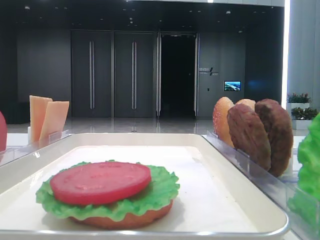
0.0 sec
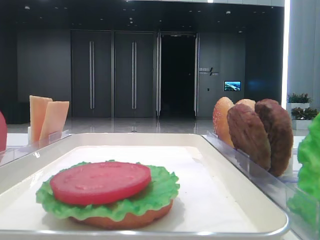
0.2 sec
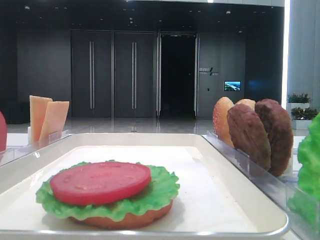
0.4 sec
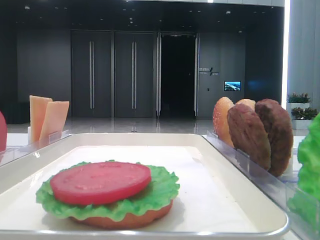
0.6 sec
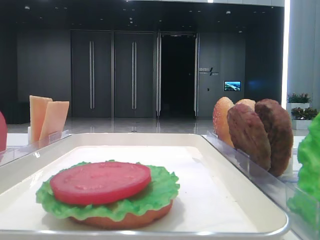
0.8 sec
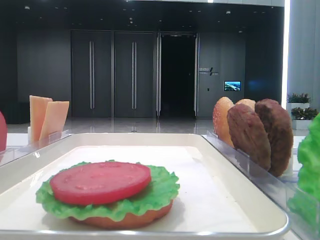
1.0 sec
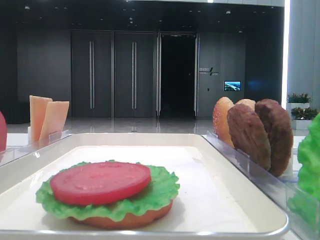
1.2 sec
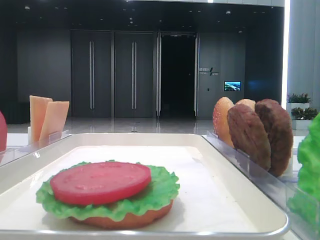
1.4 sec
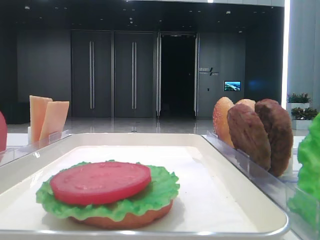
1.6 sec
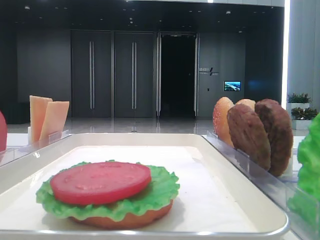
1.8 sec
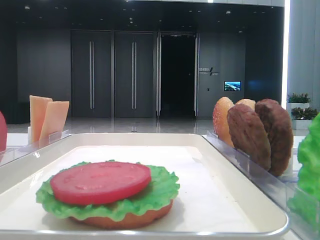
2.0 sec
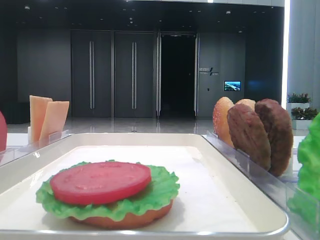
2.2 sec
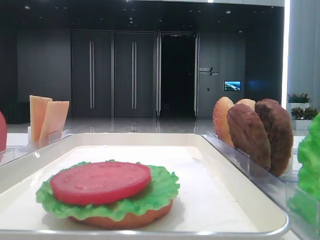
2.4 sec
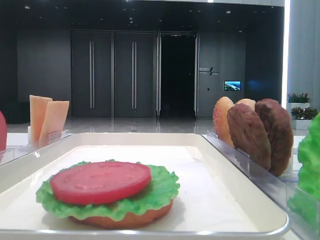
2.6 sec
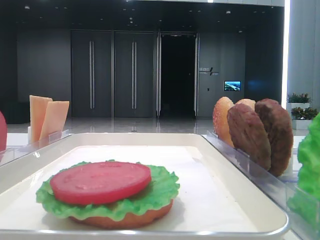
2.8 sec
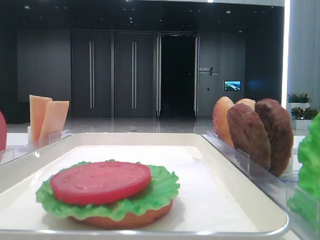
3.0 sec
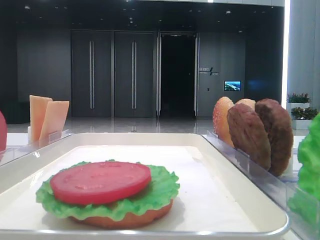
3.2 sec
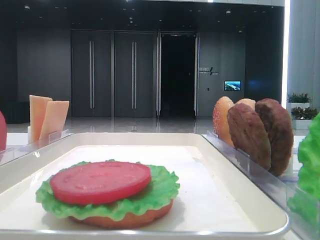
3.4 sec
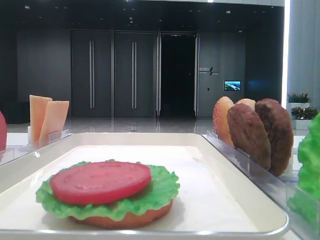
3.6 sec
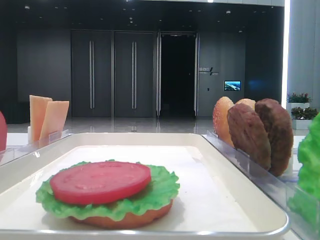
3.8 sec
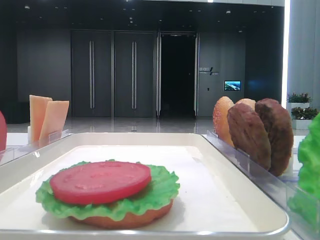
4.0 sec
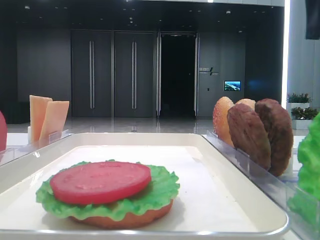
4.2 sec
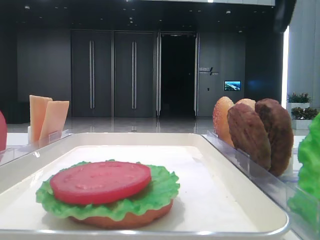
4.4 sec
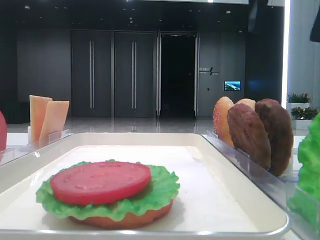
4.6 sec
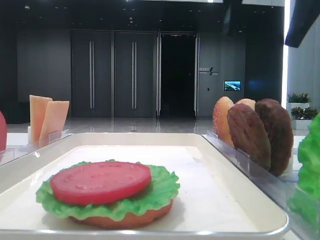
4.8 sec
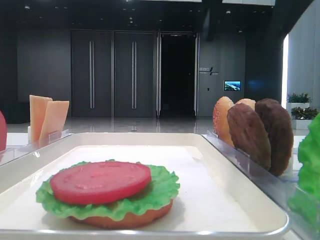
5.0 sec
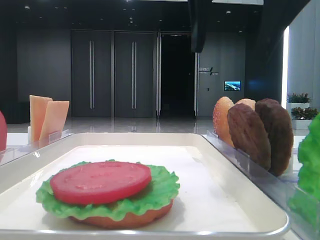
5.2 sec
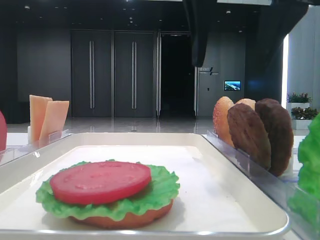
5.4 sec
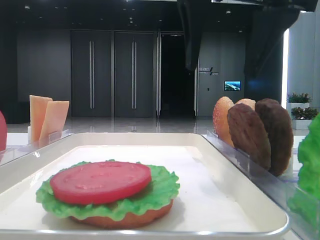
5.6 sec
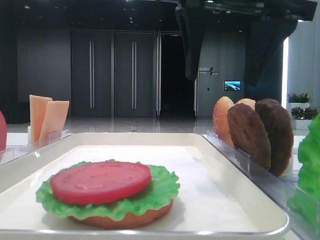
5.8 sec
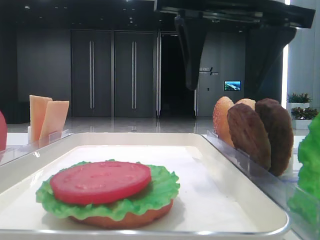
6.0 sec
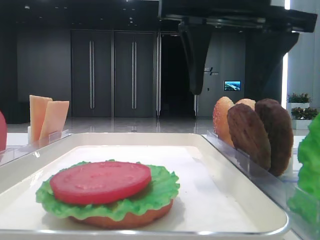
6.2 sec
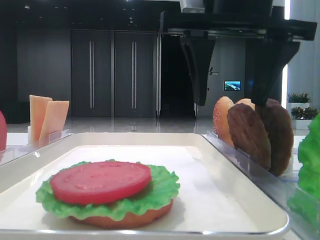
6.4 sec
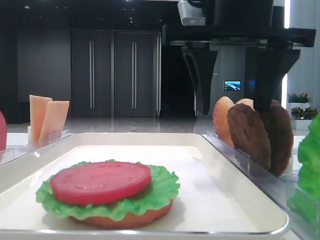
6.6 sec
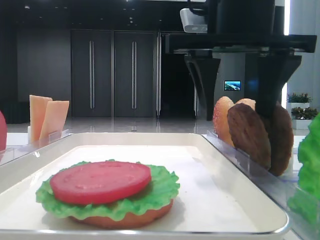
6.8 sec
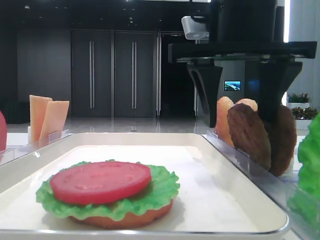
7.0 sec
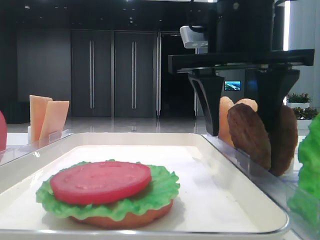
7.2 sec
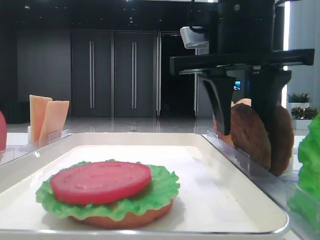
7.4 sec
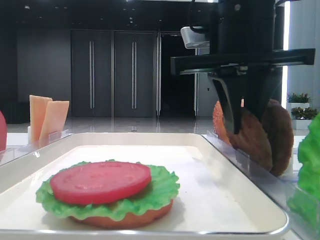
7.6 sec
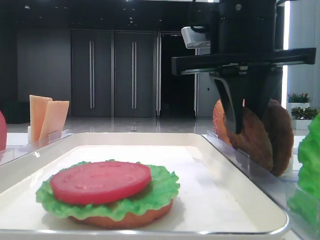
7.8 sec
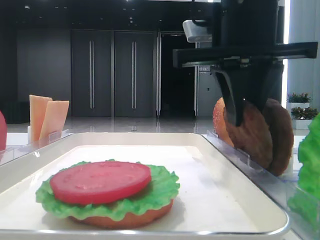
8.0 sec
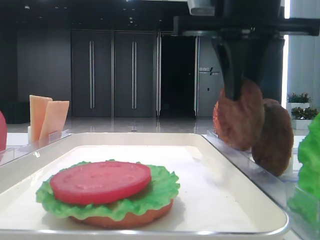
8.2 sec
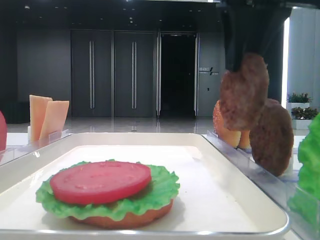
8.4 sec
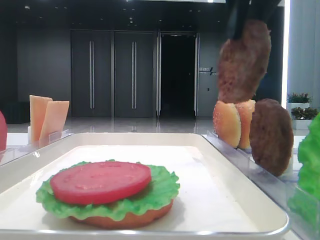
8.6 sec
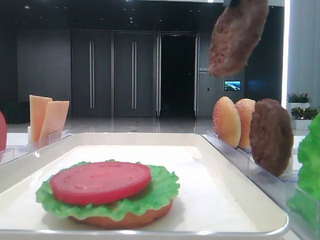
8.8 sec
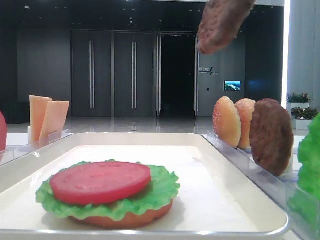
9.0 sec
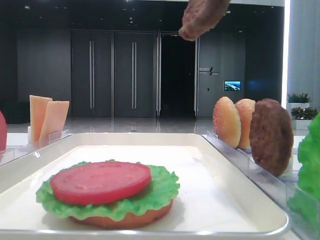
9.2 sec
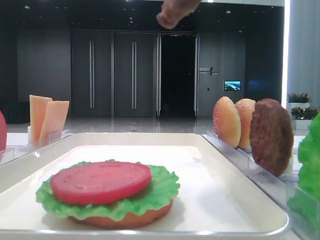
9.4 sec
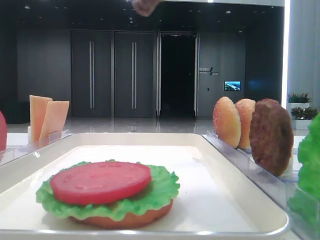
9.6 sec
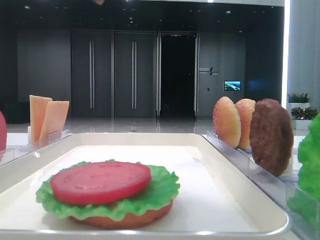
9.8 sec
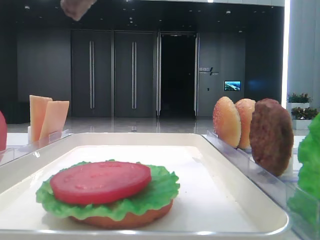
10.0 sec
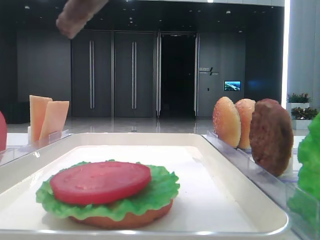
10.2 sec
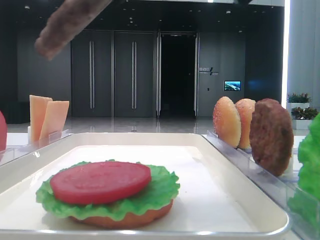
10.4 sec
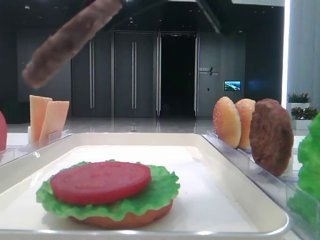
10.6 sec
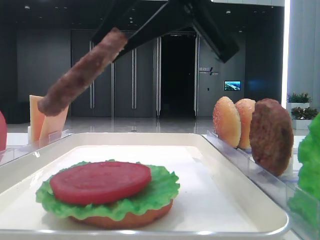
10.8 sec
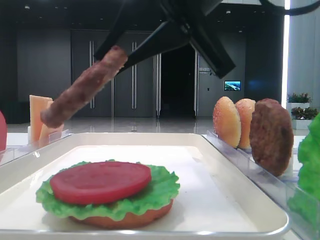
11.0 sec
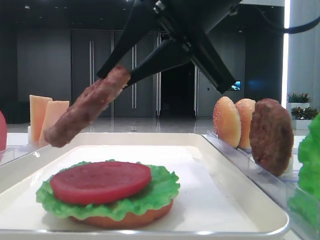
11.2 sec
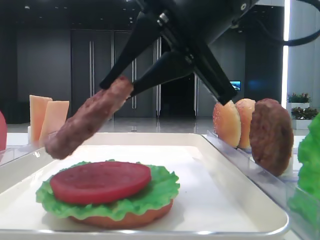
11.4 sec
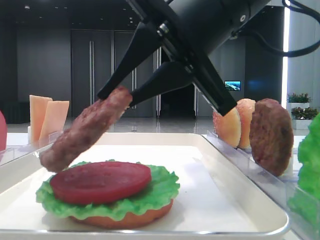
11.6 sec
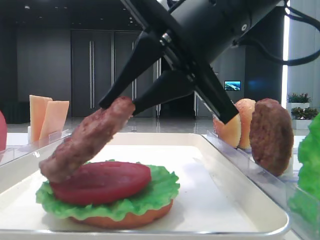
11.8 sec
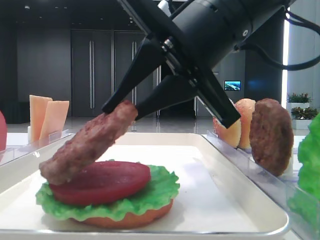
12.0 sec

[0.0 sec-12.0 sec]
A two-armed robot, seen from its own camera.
Step, 0.0 sec to 7.8 sec: Grab the patty with the right hand.
4.4 sec to 6.0 sec: The right gripper shifts approximately 10 cm to the left and downward.
6.0 sec to 7.6 sec: The right gripper shifts by about 5 cm, and closes.
7.6 sec to 9.0 sec: The right gripper moves upward and backward, some 15 cm.
9.0 sec to 10.4 sec: The right gripper moves downward, some 5 cm.
10.4 sec to 12.0 sec: The right gripper is displaced downward and forward by about 10 cm.

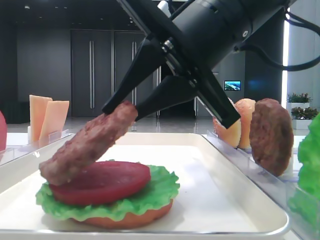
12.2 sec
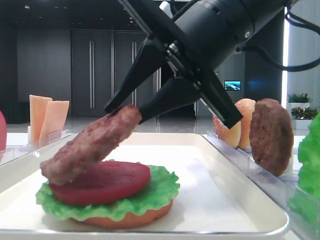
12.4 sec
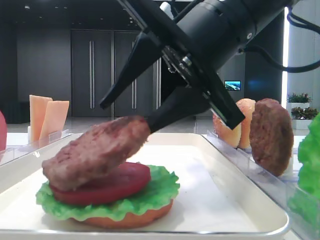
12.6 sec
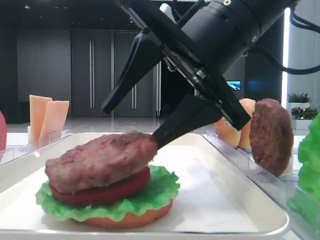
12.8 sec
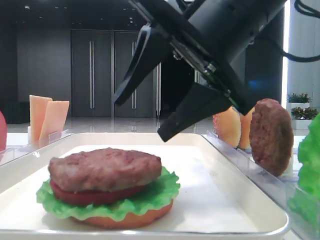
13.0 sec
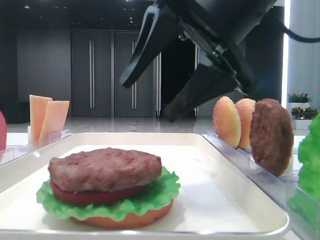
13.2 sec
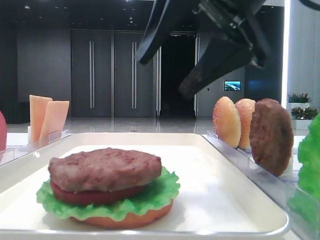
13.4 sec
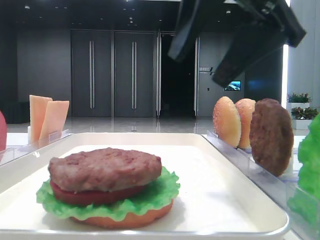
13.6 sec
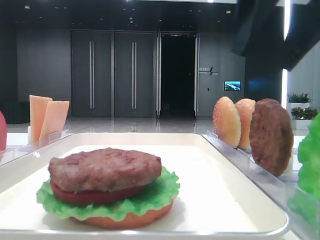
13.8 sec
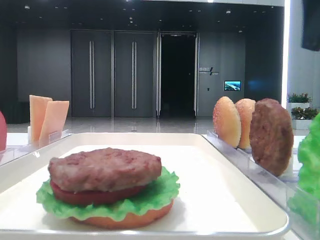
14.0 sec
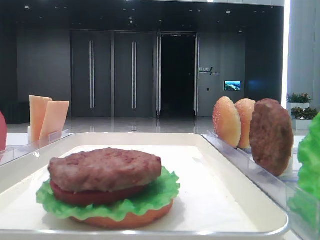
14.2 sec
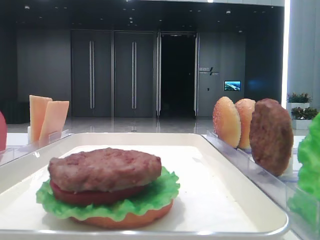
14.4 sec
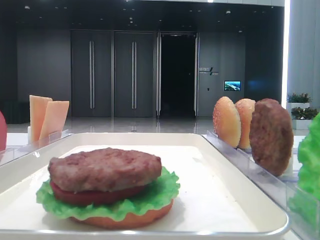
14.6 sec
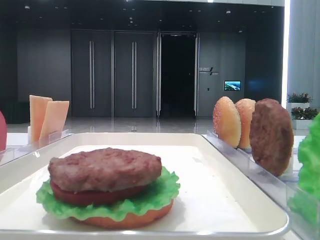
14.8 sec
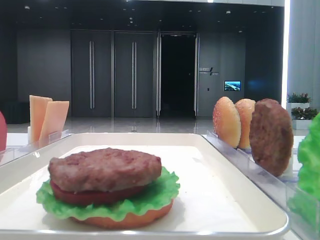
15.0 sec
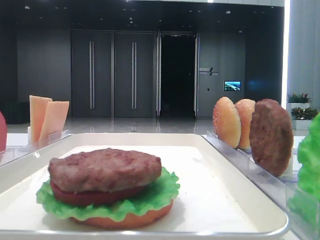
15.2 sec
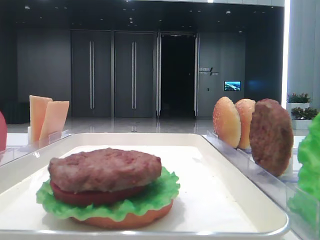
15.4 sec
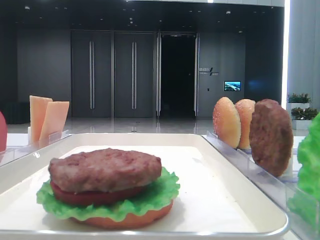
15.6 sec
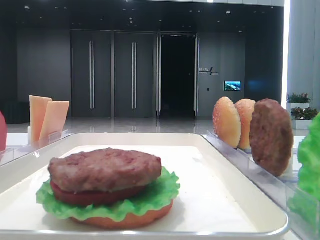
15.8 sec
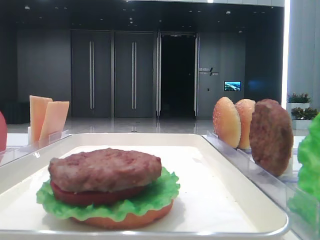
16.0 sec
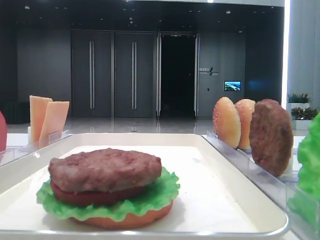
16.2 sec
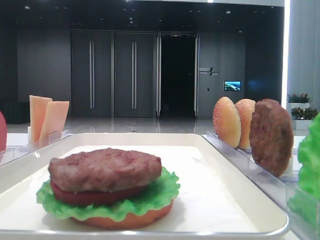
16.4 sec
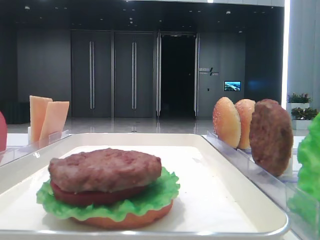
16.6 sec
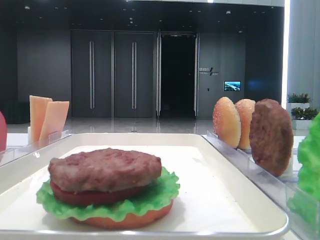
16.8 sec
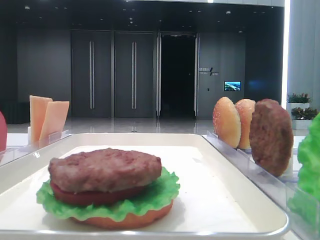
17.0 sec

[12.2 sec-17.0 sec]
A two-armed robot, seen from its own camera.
12.2 sec to 13.8 sec: The right gripper is displaced to the right and upward by some 10 cm, and opens its fingers.
13.8 sec to 15.4 sec: The right gripper goes some 25 cm backward and to the right.

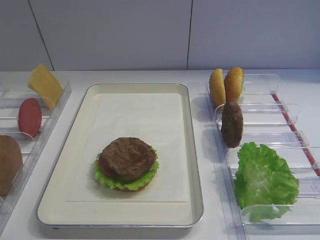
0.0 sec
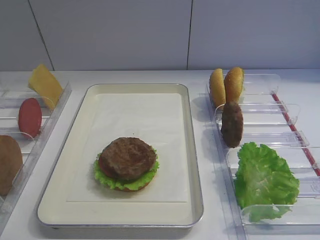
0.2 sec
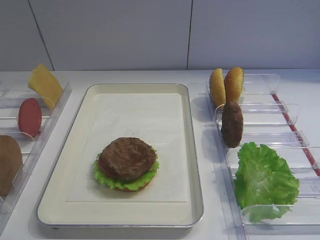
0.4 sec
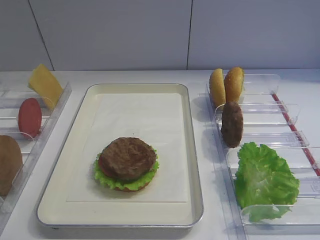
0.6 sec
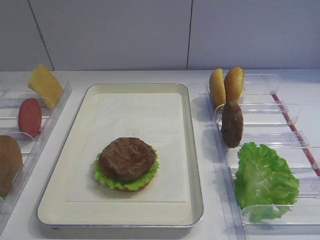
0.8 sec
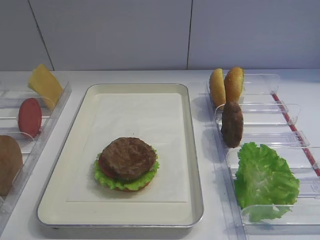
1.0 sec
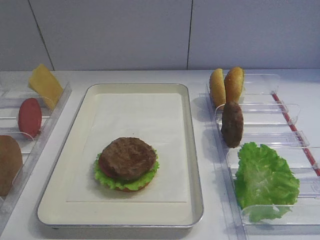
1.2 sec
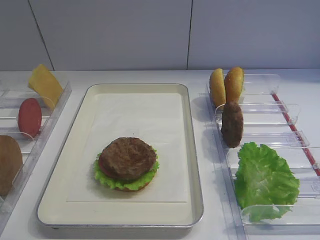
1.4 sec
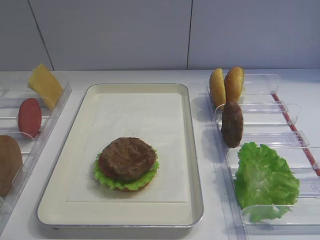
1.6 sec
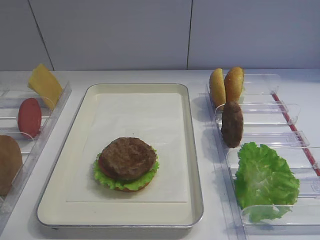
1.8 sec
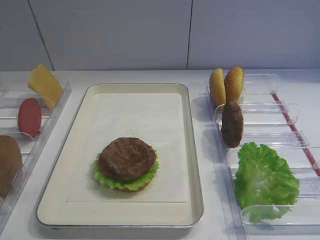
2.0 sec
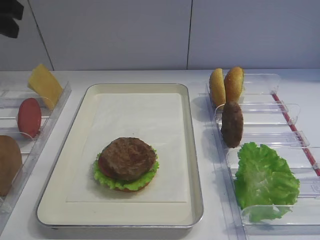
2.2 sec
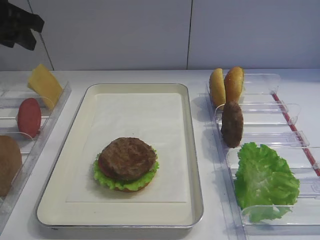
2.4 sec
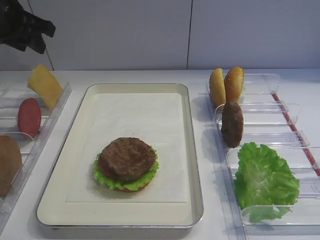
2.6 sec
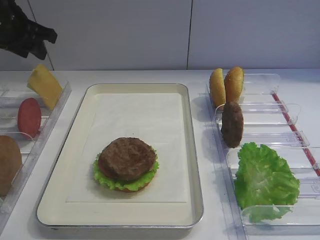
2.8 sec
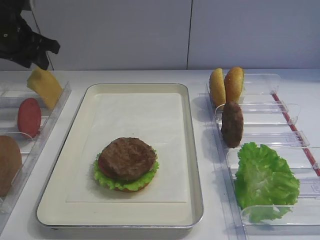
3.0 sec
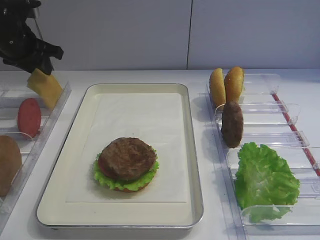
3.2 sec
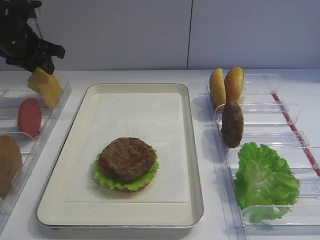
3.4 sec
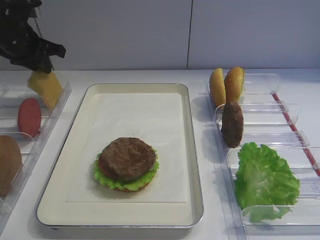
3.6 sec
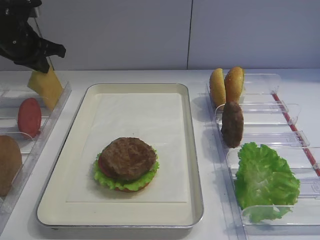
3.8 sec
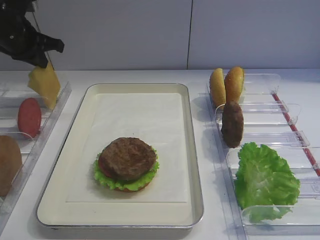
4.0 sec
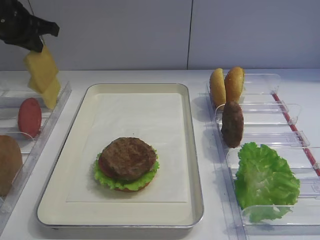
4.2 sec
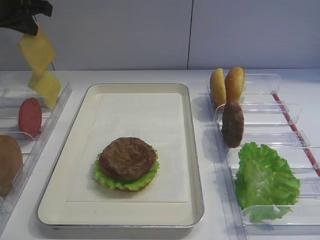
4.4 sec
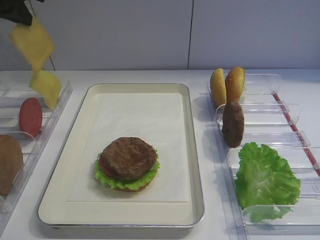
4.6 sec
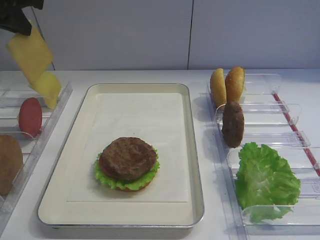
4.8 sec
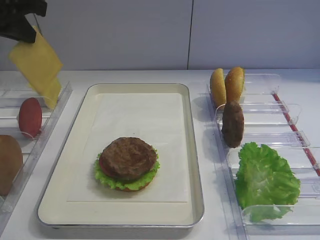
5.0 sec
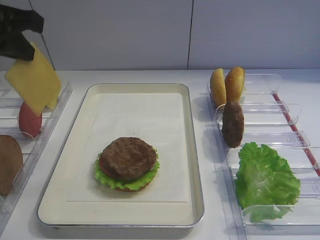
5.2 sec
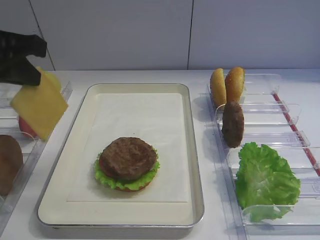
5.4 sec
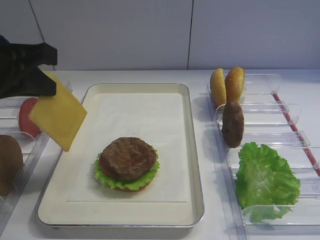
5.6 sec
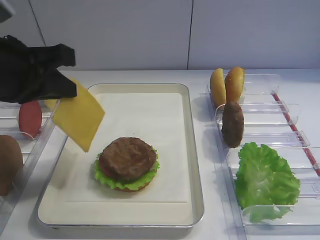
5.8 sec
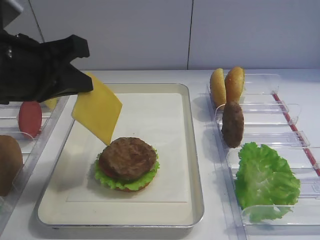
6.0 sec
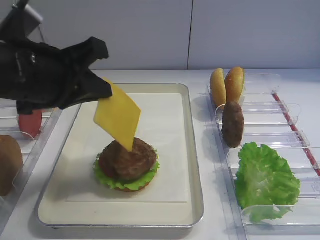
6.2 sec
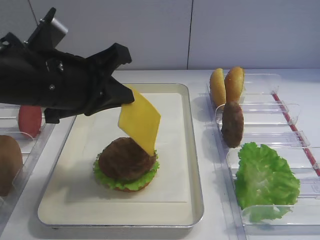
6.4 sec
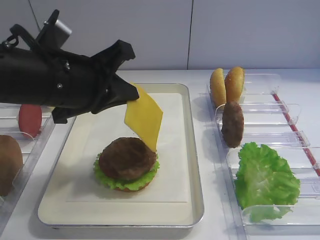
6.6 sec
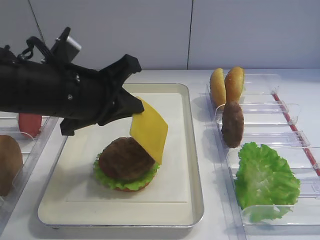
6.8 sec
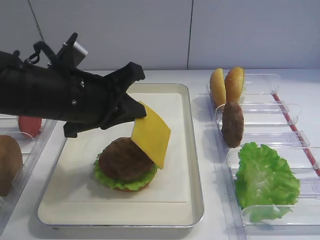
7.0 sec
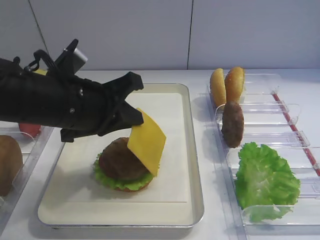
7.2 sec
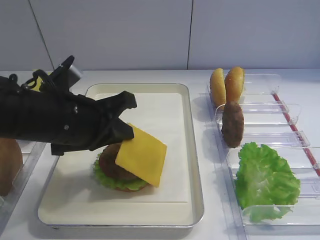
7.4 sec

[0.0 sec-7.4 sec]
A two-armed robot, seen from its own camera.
Step, 0.0 sec to 4.2 sec: Pick up the cheese slice with the left gripper.
1.4 sec to 3.0 sec: The left gripper heads forward, covering some 35 cm.
3.0 sec to 4.4 sec: The left gripper is displaced upward by some 5 cm, and closes.
4.4 sec to 6.0 sec: The left gripper travels backward and to the right by about 20 cm.
6.0 sec to 7.4 sec: The left gripper travels downward by about 10 cm.
